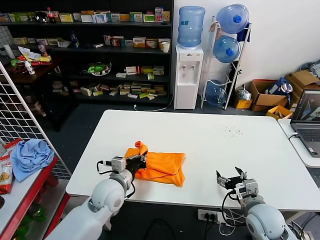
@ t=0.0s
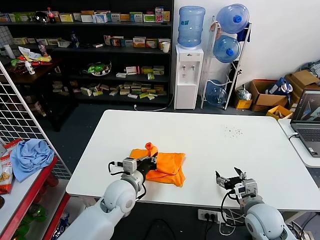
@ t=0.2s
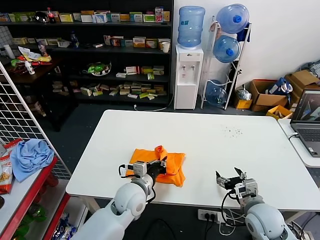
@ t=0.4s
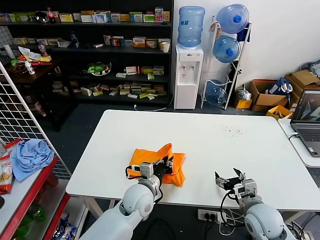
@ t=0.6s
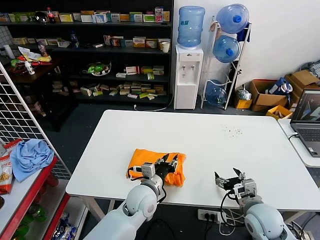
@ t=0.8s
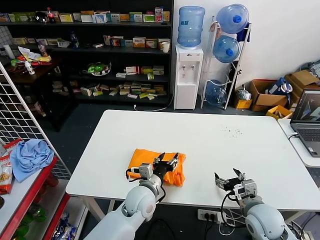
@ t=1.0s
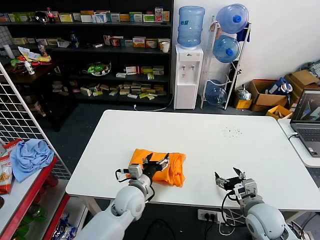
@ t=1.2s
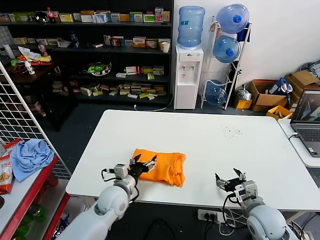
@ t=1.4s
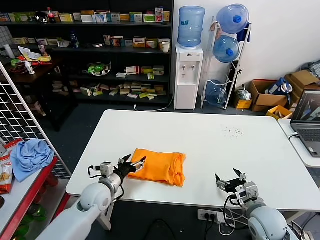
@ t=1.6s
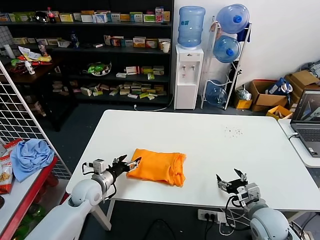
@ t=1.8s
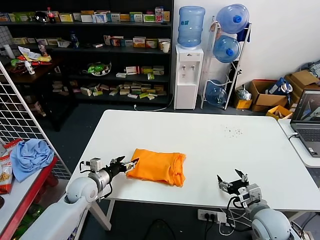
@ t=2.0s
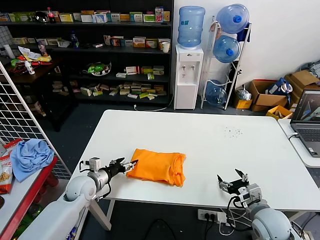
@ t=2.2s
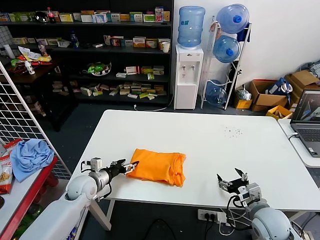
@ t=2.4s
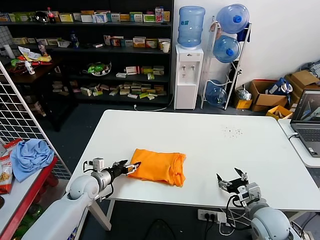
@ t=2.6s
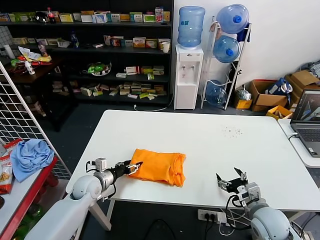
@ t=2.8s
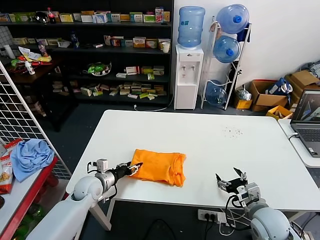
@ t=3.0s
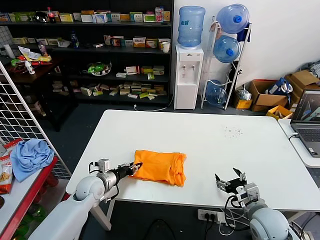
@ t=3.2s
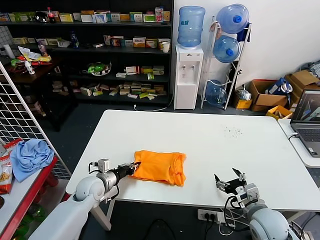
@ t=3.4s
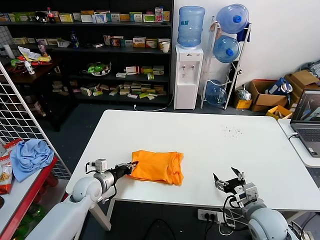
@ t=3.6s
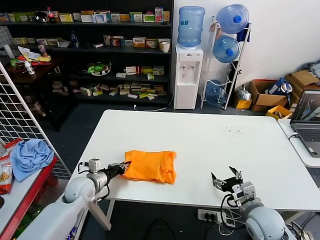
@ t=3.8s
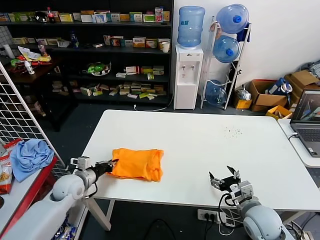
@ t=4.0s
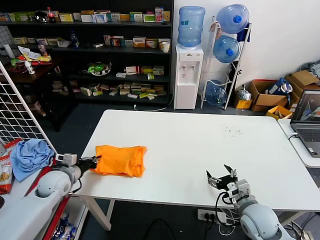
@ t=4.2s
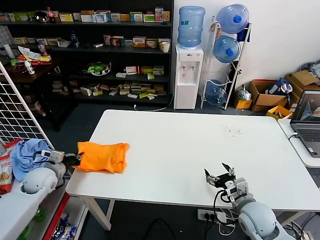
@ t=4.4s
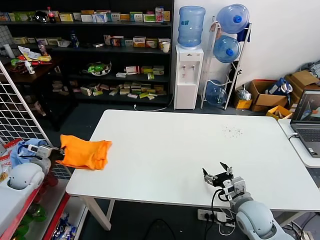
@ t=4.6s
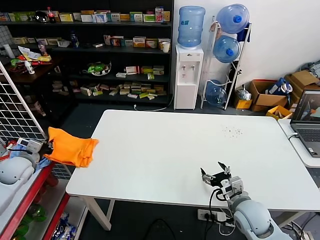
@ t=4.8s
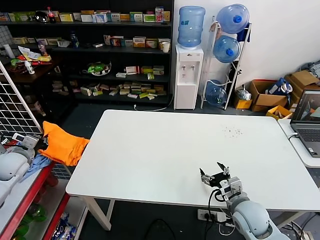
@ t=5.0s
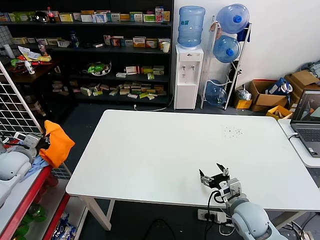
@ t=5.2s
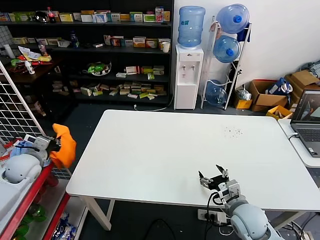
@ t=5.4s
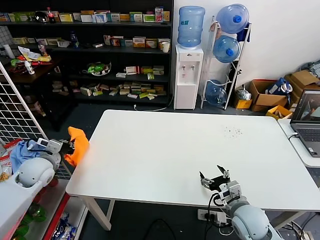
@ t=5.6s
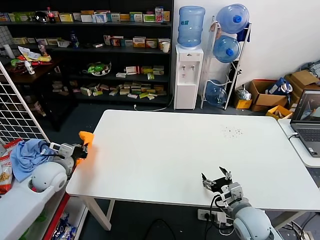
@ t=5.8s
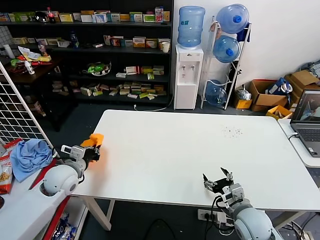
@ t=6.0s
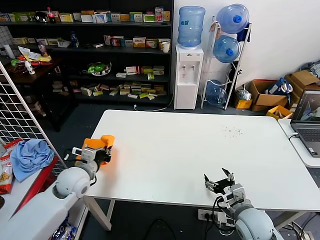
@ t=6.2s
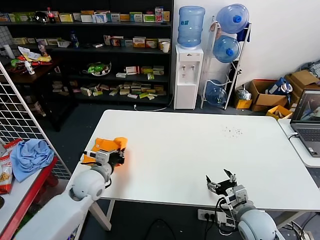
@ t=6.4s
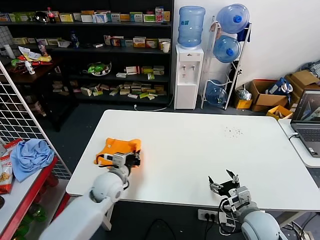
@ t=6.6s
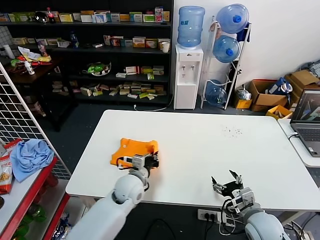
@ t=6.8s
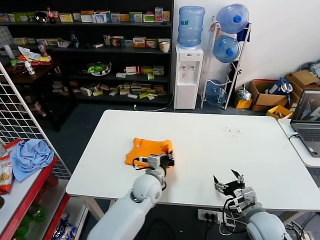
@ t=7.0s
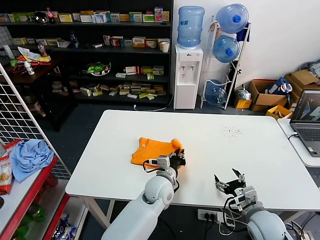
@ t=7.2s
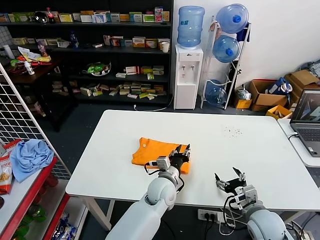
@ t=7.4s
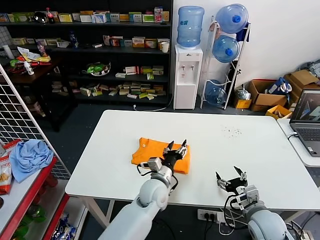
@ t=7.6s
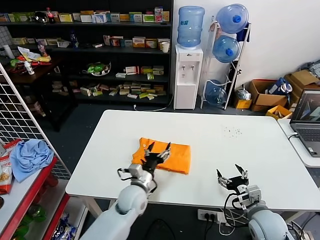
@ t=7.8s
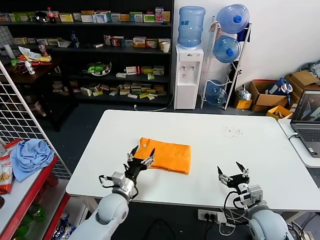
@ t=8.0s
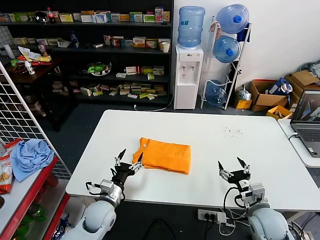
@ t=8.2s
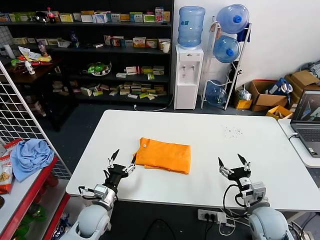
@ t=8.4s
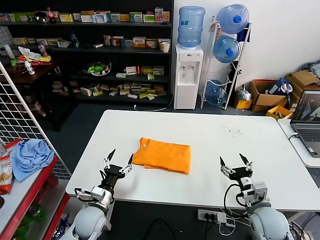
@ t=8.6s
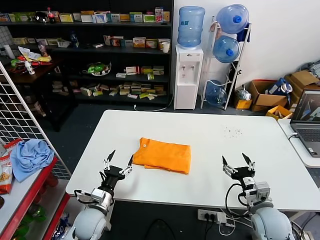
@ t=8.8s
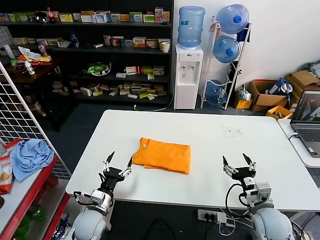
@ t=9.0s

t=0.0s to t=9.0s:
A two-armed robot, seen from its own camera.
Task of the whole recording: fold and organize the clothes.
Step, t=1.0s to t=7.4s: Flip the folded clothes over with left gripper.
t=0.0s to t=1.6s: The left gripper shifts approximately 5 cm downward, moves approximately 10 cm to the right and comes back, and opens.
t=1.6s to t=3.0s: The left gripper moves to the left, approximately 5 cm, and closes.
t=3.0s to t=4.4s: The left gripper moves to the left and upward, approximately 15 cm, and closes its fingers.
t=4.4s to t=6.0s: The left gripper heads to the right, covering some 10 cm.
t=6.0s to t=7.6s: The left gripper shifts roughly 30 cm to the right, and opens.
t=7.6s to t=9.0s: The left gripper travels to the left by roughly 25 cm.
